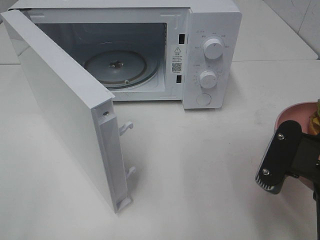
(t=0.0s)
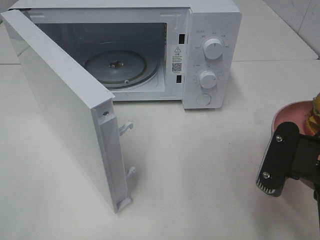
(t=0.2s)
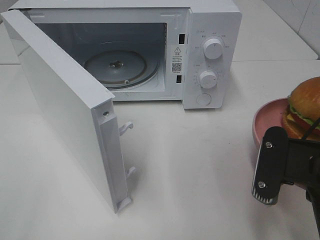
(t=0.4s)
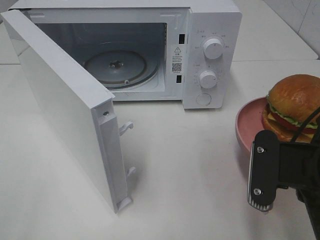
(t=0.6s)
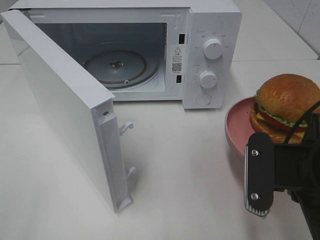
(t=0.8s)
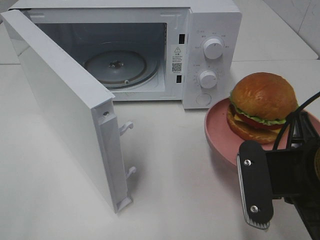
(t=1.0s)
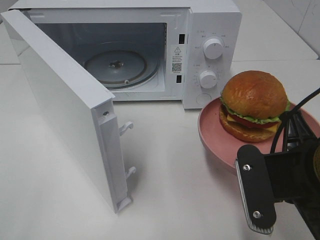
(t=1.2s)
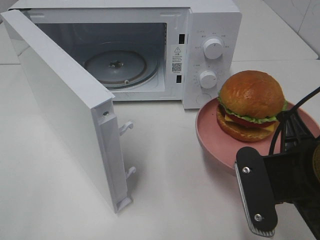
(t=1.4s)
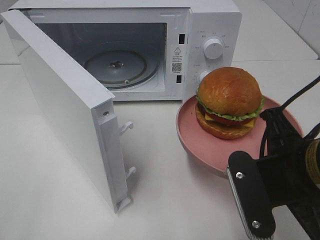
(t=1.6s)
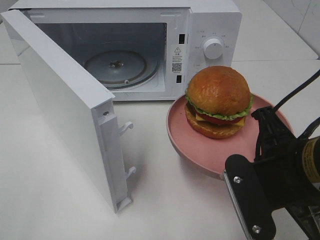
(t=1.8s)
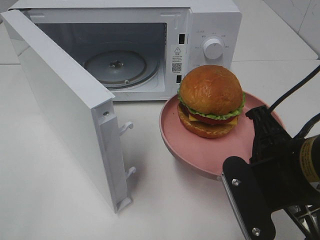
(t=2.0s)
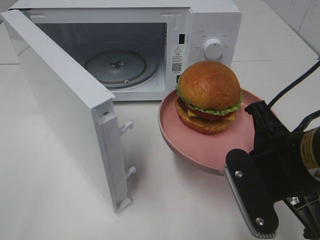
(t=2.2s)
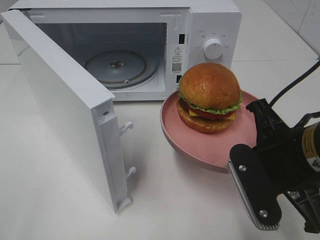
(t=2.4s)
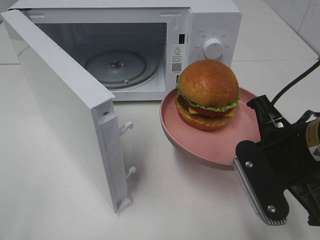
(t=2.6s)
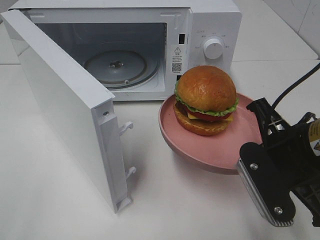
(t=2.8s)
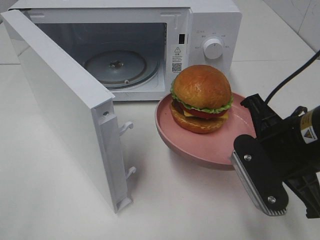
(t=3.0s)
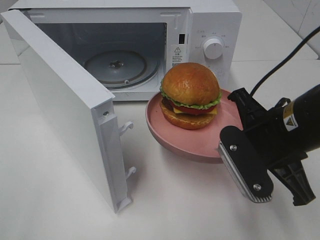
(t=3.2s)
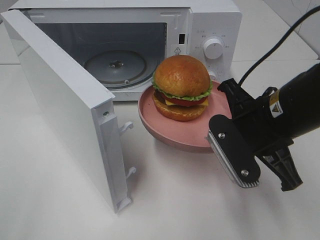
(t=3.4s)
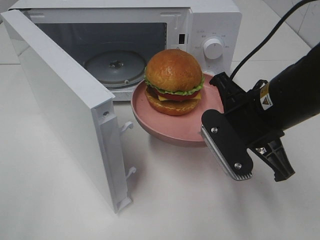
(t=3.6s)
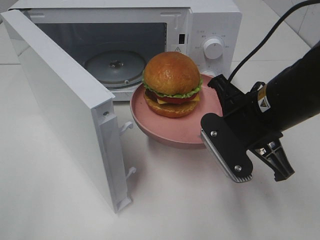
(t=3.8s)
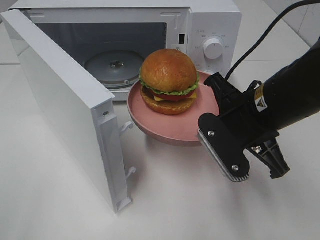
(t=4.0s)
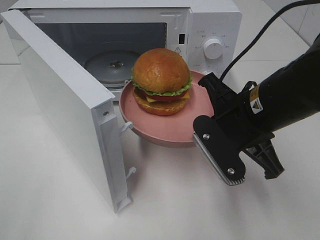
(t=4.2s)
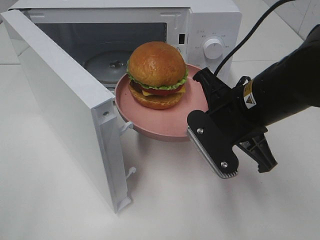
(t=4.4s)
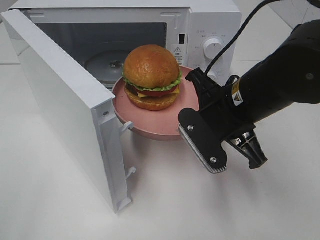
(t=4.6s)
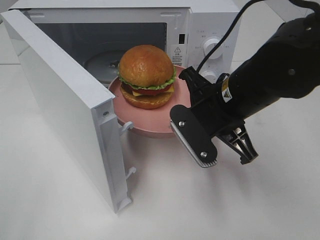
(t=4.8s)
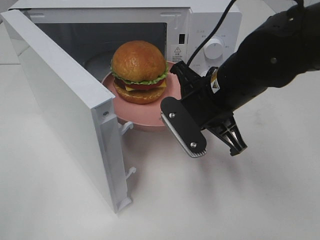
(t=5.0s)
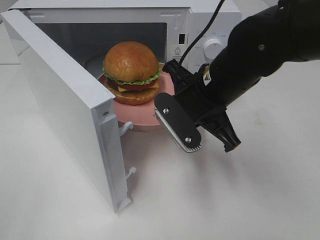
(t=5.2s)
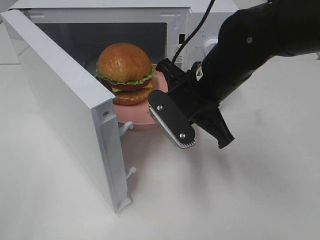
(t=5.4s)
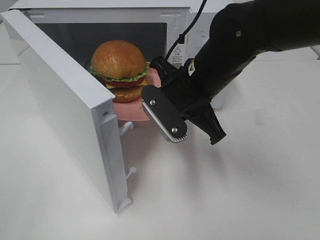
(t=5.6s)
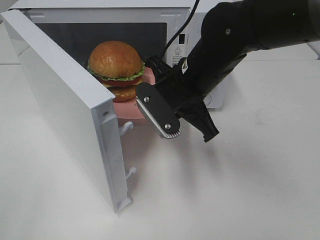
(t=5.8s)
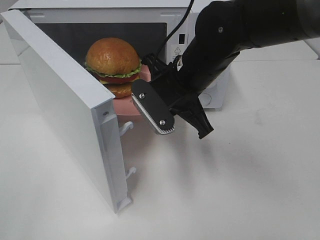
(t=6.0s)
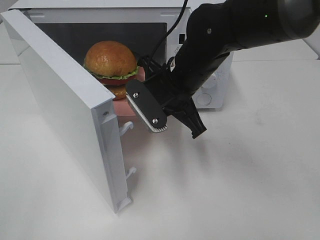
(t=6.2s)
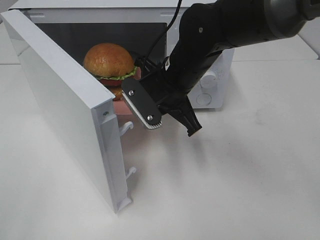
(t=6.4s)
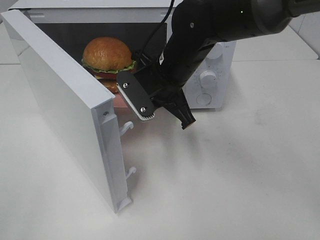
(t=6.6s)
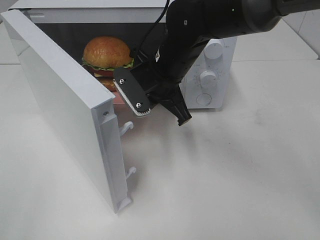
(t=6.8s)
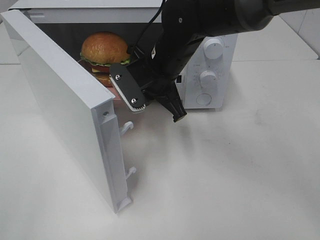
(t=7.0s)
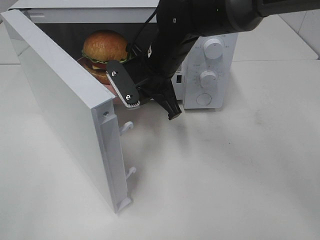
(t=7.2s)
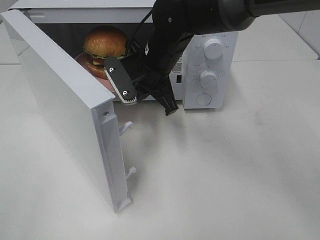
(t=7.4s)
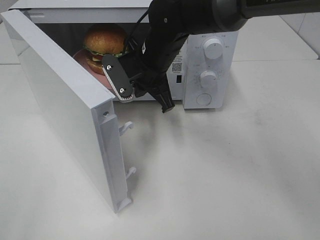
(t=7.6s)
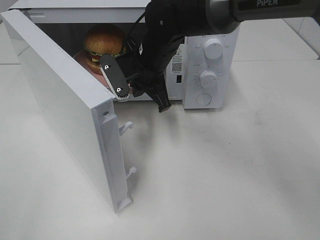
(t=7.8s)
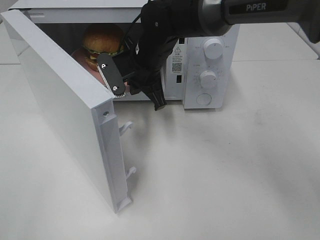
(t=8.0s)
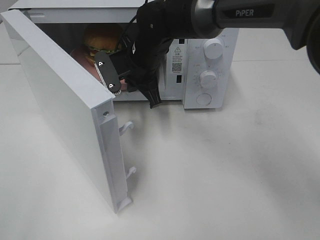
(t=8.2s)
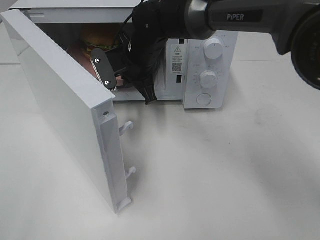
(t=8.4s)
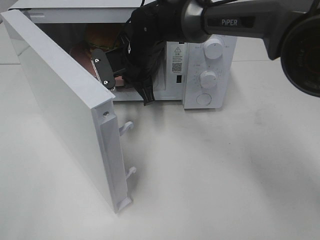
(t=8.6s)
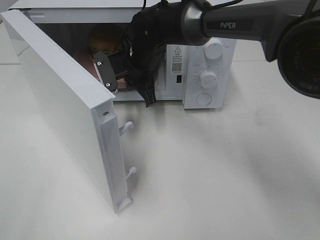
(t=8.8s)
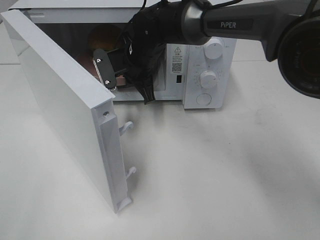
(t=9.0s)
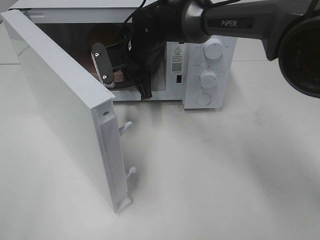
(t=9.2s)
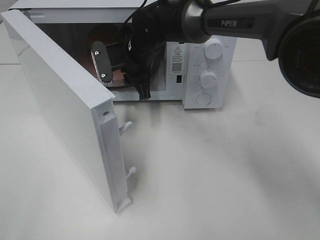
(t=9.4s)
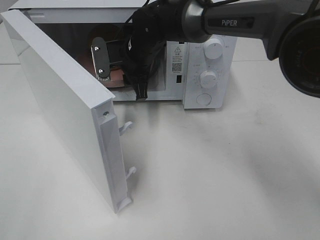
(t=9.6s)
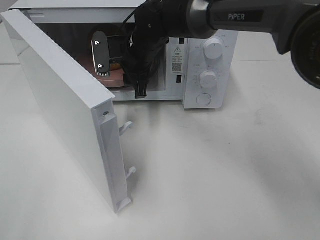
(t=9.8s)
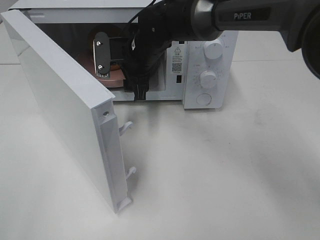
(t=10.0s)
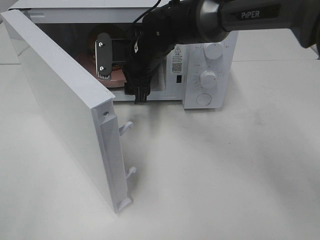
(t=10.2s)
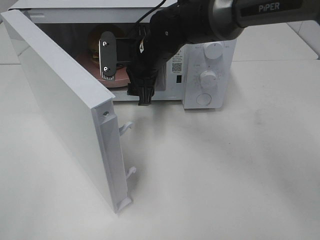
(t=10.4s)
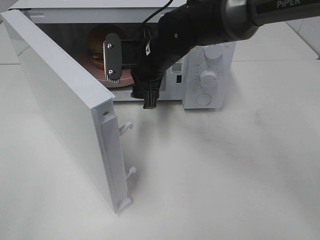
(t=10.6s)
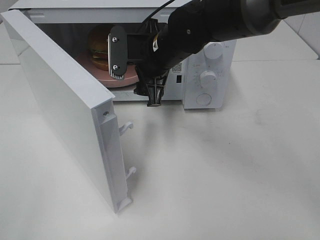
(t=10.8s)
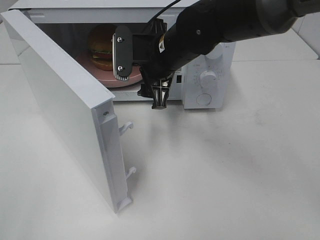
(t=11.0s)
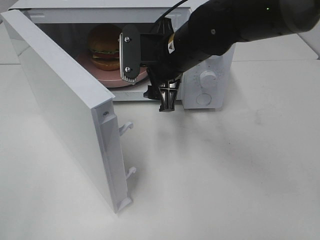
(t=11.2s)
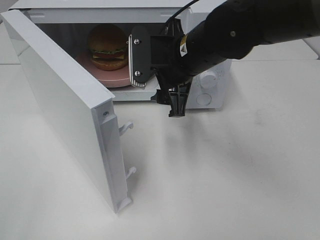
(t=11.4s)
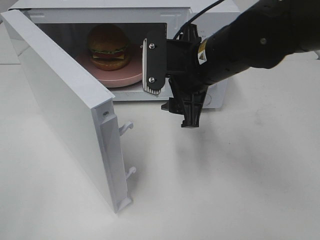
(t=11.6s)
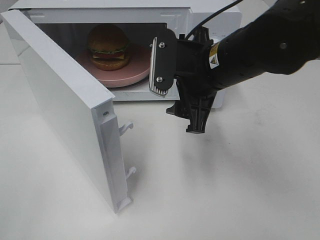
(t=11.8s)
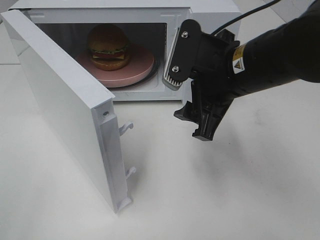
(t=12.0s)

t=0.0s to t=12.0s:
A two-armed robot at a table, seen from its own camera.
Task of the whole recording: Heat the burger.
Step, t=0.0s to t=9.4s: Right hand: place the plate in the microwave.
t=1.6s to t=3.0s: The grippers move only a little.
t=3.0s to t=4.4s: The right gripper ends up roughly 5 cm from where it was.
t=4.4s to t=6.0s: The right gripper is displaced forward and to the left by approximately 10 cm.
t=6.0s to t=7.6s: The right gripper travels forward by about 10 cm.
t=7.6s to t=9.0s: The right gripper moves approximately 5 cm.
t=9.0s to t=10.4s: The right gripper opens.
t=10.4s to t=12.0s: The right gripper goes roughly 20 cm backward and to the right.

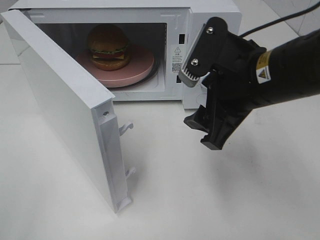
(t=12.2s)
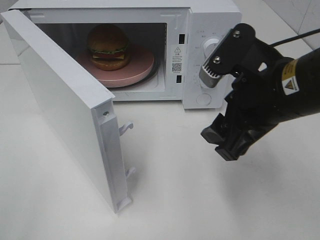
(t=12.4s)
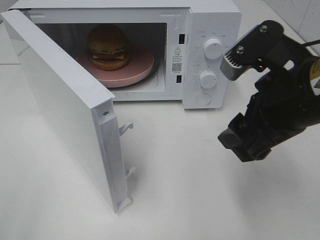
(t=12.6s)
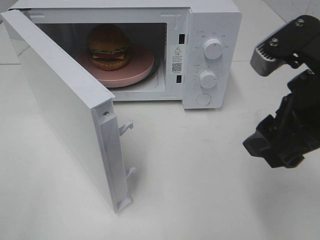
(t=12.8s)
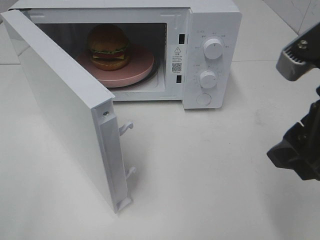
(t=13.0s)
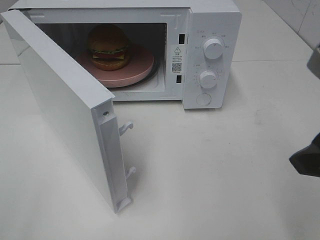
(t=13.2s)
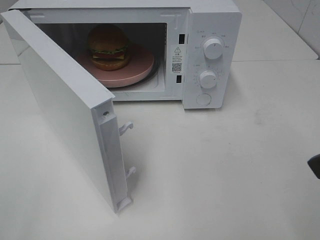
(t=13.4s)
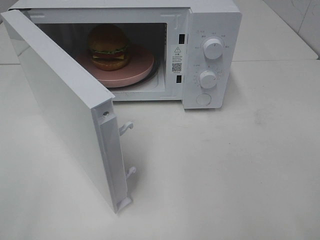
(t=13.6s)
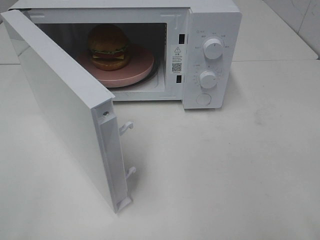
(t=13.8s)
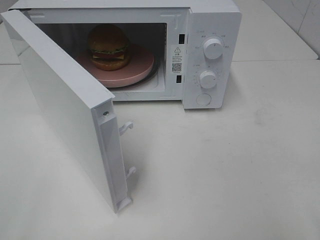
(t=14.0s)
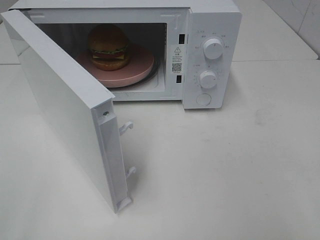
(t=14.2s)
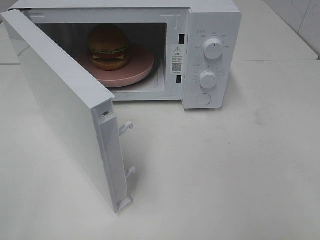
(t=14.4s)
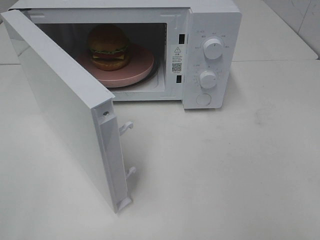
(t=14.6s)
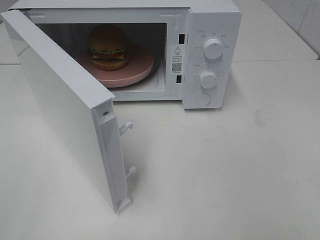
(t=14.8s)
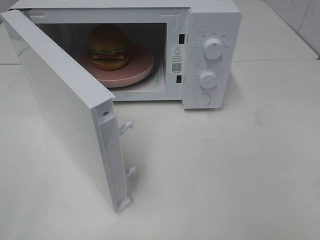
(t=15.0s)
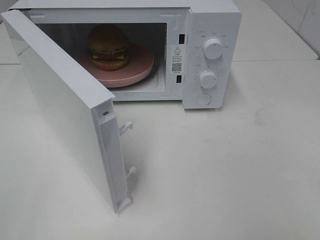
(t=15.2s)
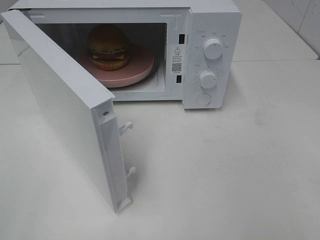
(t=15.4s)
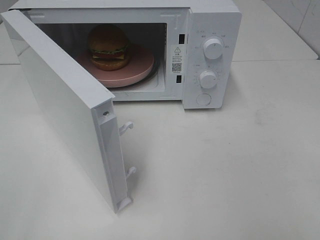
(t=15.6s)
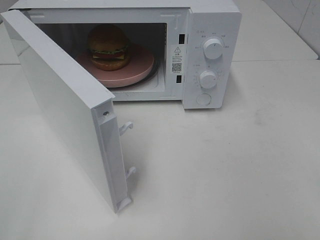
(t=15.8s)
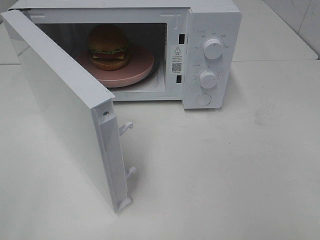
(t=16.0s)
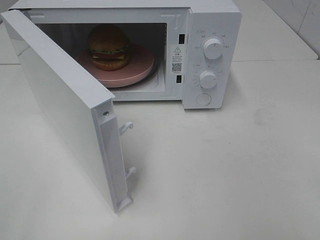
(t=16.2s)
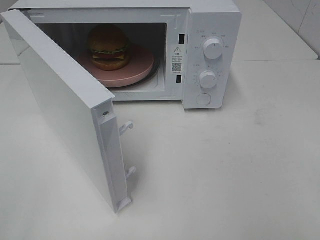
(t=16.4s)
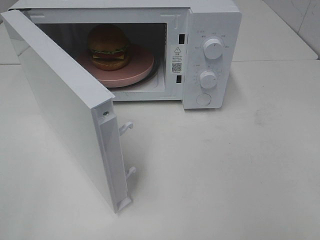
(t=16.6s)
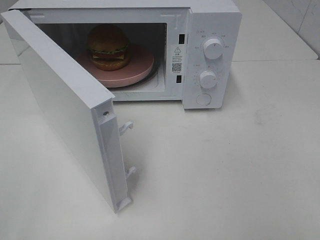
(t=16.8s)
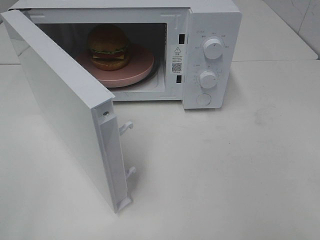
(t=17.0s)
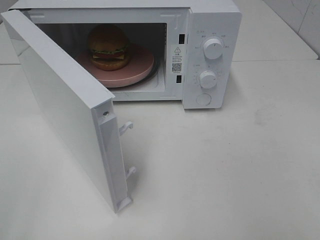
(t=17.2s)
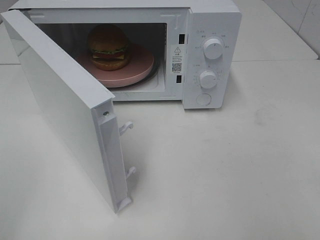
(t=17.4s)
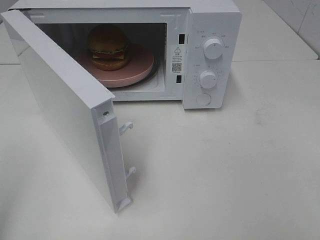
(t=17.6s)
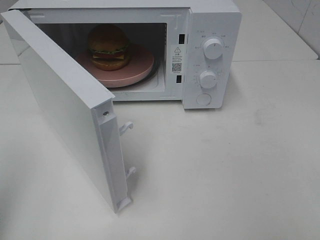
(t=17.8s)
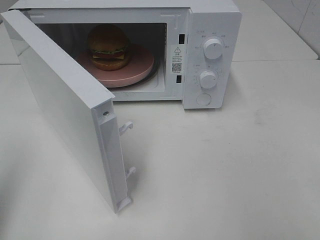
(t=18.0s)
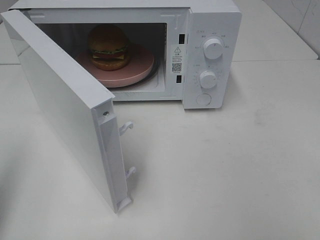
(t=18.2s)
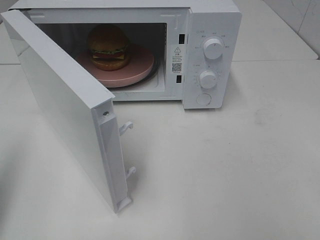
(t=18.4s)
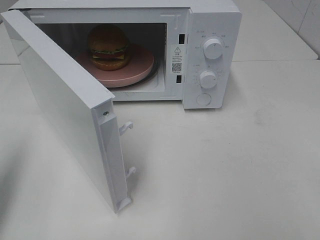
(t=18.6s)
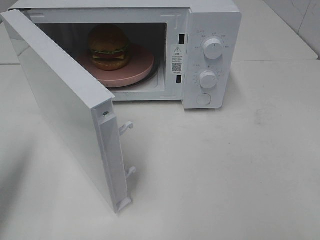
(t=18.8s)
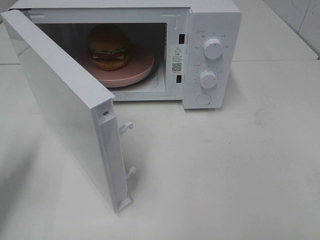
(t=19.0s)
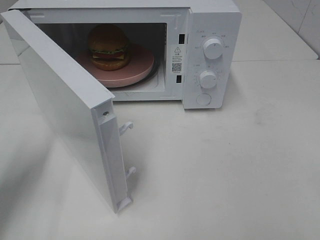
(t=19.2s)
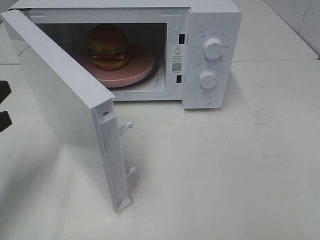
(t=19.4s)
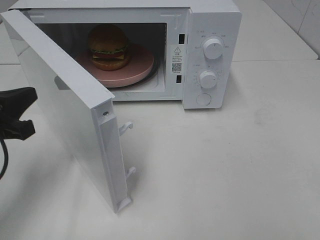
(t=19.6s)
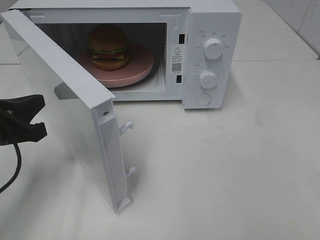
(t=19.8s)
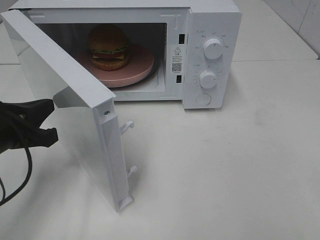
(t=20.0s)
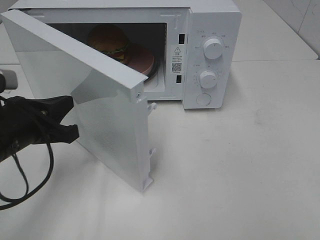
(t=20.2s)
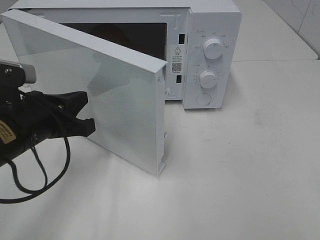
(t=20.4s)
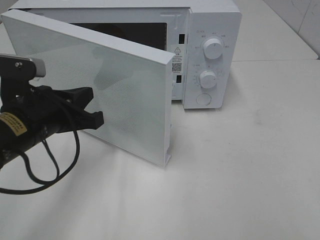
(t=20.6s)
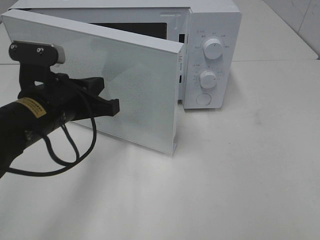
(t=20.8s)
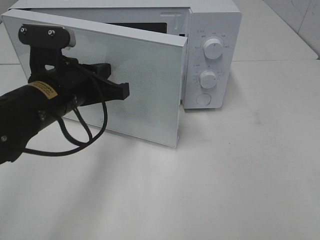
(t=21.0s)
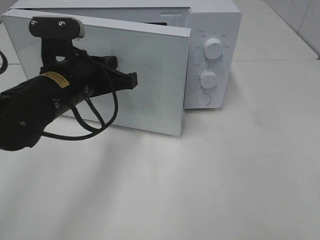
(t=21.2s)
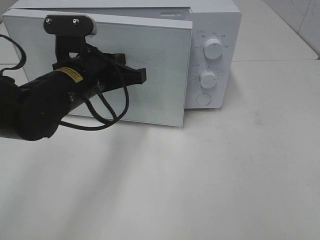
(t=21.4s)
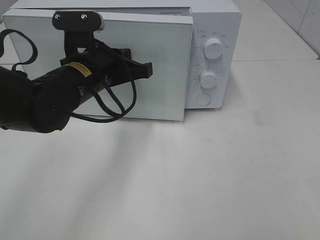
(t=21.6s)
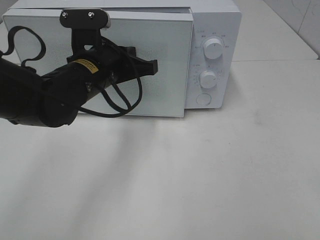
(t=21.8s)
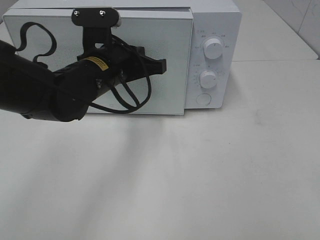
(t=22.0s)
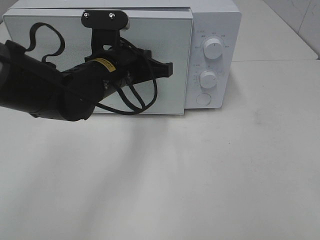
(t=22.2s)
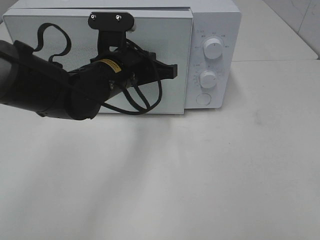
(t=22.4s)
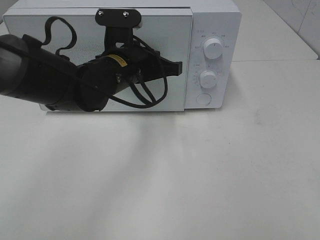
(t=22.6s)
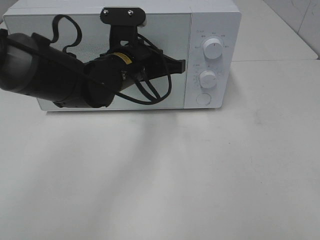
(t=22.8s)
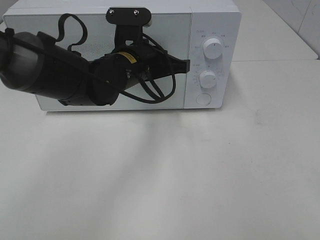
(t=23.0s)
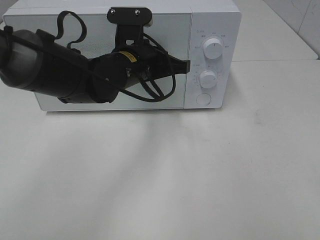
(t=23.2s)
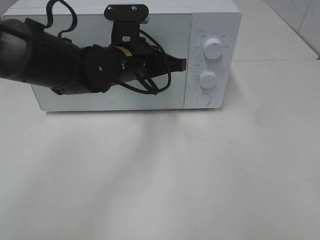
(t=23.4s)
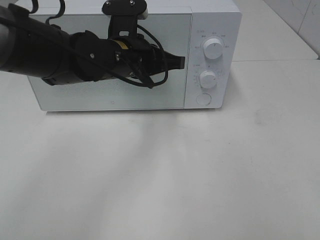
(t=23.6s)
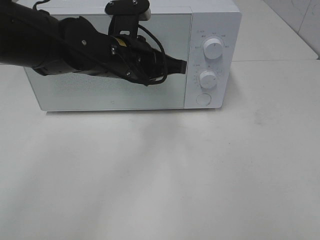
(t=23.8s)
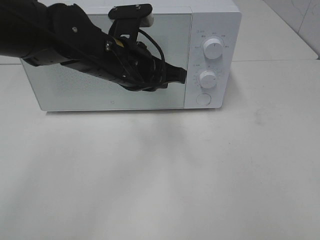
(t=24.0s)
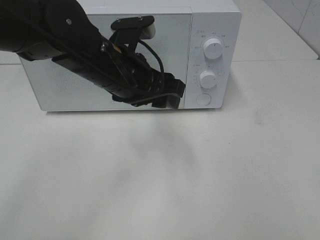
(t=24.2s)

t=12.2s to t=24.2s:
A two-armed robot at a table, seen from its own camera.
Task of the whole recording: Heat the burger.
Step, t=12.2s to t=23.6s: Left hand: close the microwave door.
t=12.2s to t=13.8s: The right gripper goes approximately 20 cm backward and to the right.
t=15.2s to t=16.6s: Both grippers stay about where they are.
t=16.6s to t=18.2s: The left gripper heads forward, covering some 10 cm, and closes its fingers.
t=18.2s to t=19.8s: The left gripper shifts roughly 15 cm downward, forward and to the right.
t=19.8s to t=21.2s: The left gripper travels to the right and forward by approximately 15 cm.
t=21.2s to t=22.6s: The left gripper is displaced to the right and forward by roughly 10 cm.
t=22.6s to t=24.2s: The left gripper shifts by approximately 5 cm, and opens its fingers.
